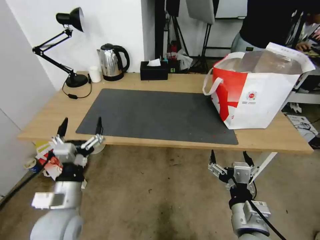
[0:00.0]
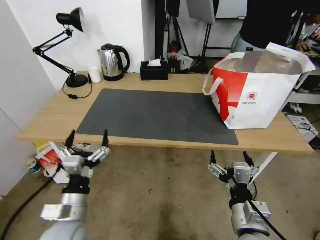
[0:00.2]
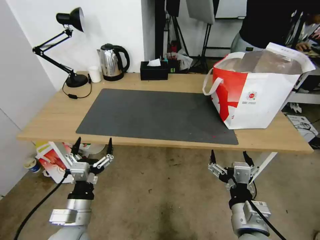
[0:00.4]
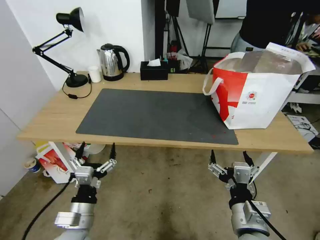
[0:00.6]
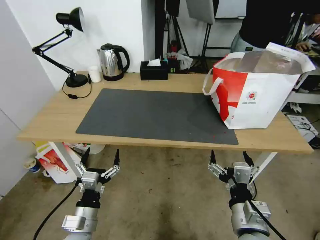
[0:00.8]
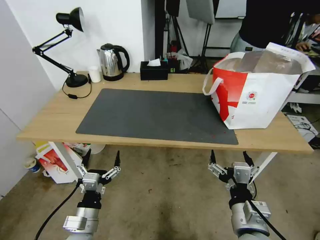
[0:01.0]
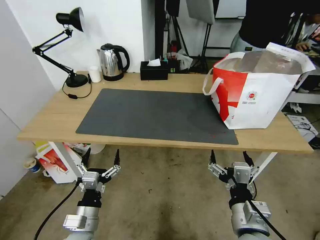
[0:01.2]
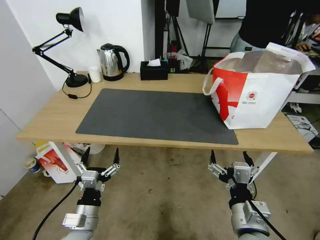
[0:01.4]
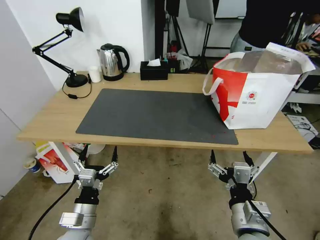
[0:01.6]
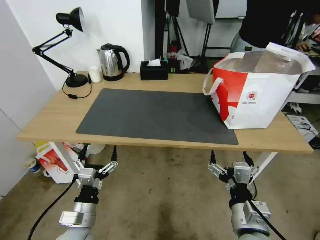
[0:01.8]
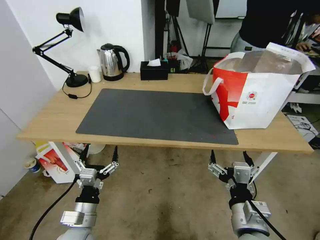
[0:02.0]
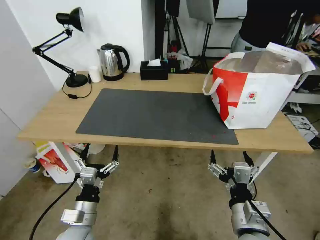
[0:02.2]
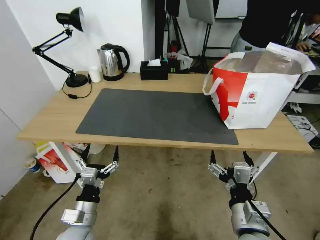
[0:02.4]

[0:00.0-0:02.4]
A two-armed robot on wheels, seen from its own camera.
Task of the whole recording: Pick up the trash from the table and place it into the takeout bag.
0:00.0 to 0:01.2: The left gripper shifts roughly 10 cm downward.
0:01.2 to 0:02.4: The grippers make only small movements.

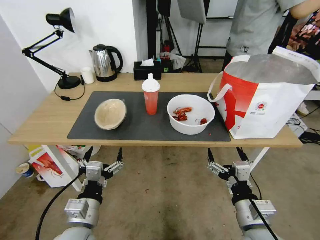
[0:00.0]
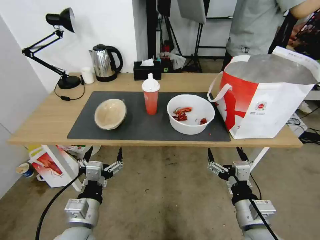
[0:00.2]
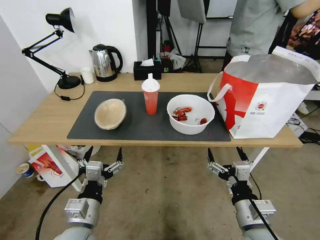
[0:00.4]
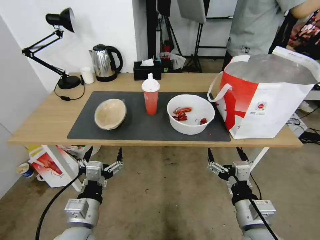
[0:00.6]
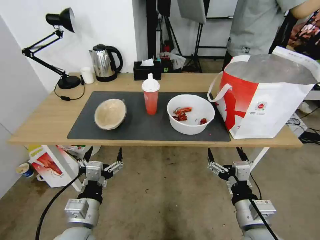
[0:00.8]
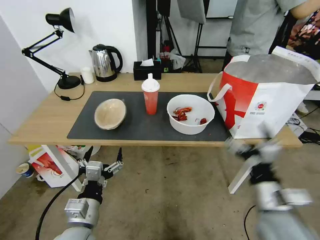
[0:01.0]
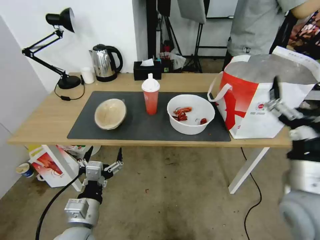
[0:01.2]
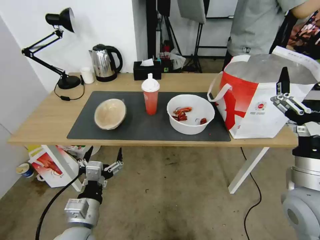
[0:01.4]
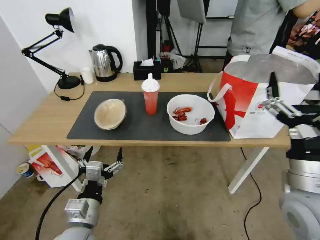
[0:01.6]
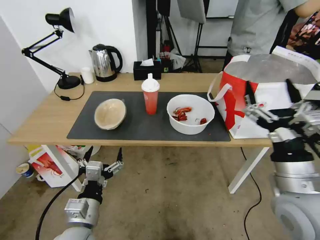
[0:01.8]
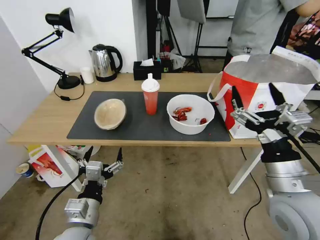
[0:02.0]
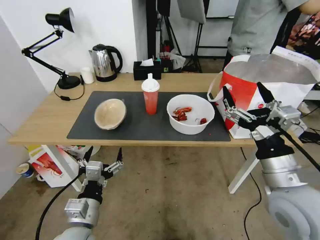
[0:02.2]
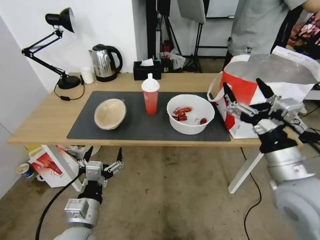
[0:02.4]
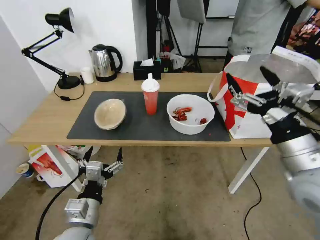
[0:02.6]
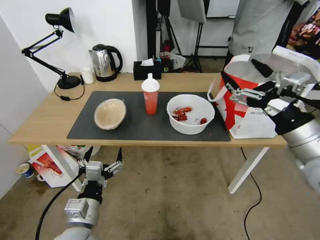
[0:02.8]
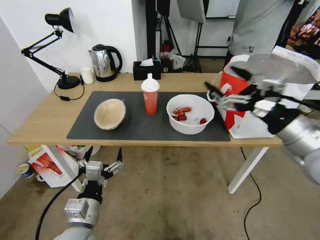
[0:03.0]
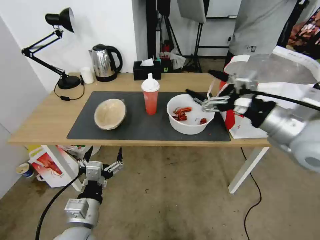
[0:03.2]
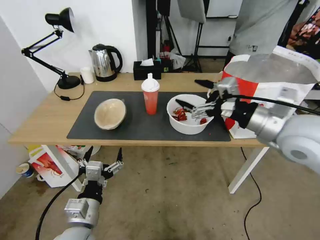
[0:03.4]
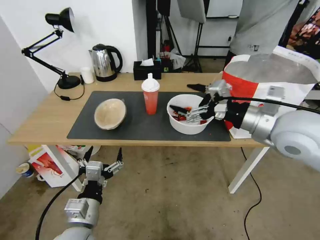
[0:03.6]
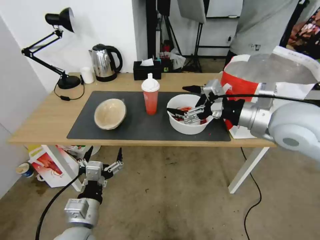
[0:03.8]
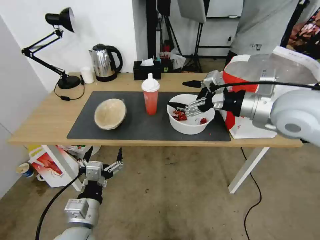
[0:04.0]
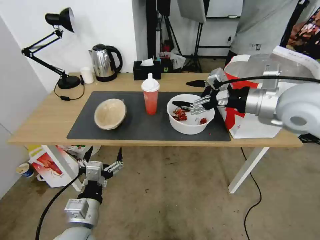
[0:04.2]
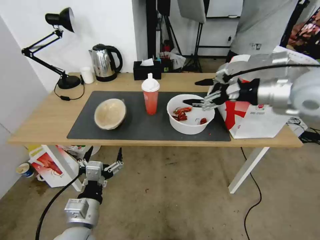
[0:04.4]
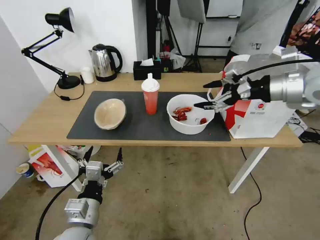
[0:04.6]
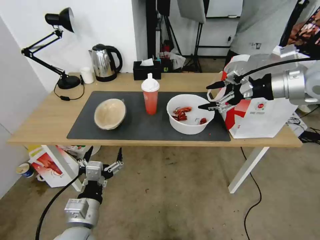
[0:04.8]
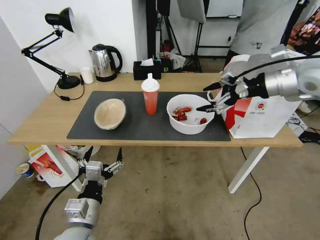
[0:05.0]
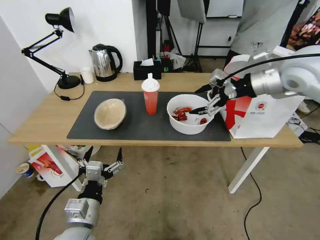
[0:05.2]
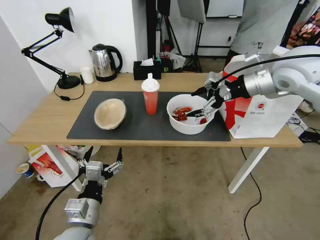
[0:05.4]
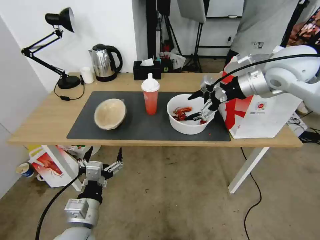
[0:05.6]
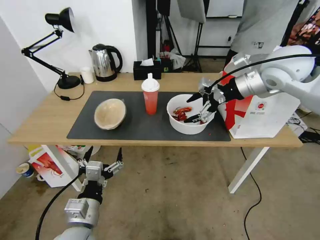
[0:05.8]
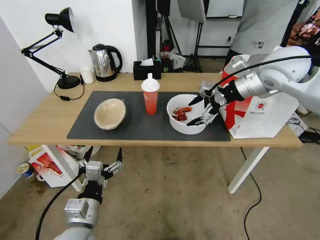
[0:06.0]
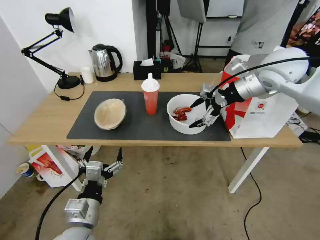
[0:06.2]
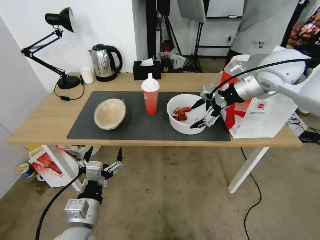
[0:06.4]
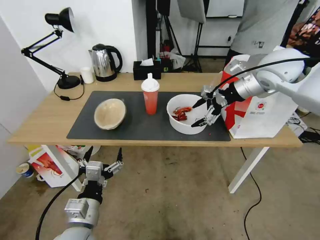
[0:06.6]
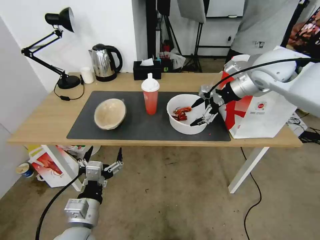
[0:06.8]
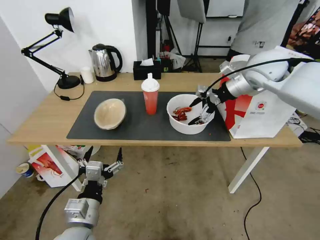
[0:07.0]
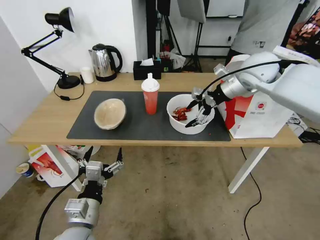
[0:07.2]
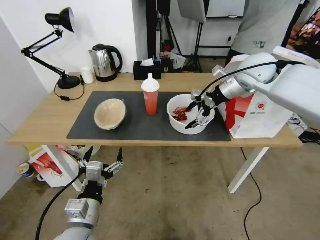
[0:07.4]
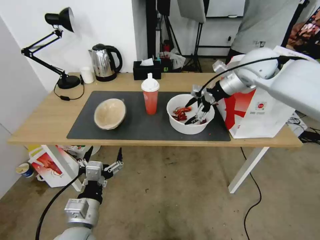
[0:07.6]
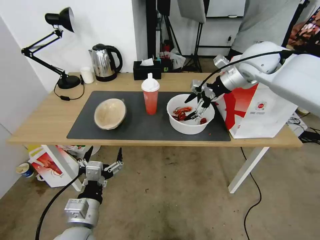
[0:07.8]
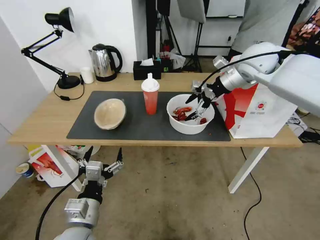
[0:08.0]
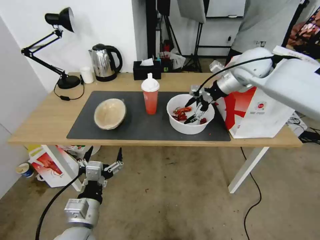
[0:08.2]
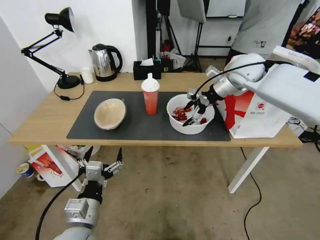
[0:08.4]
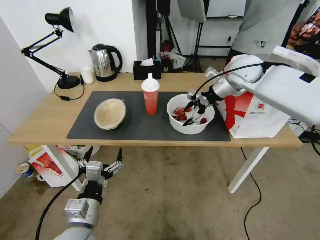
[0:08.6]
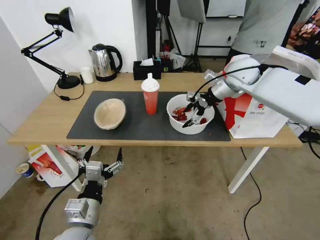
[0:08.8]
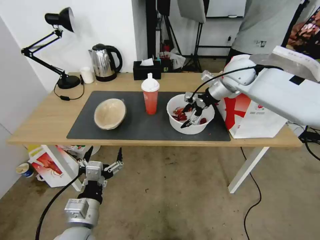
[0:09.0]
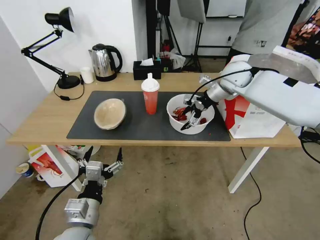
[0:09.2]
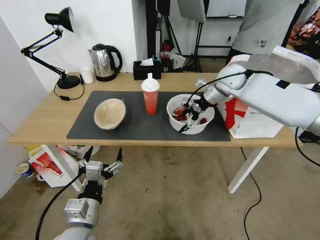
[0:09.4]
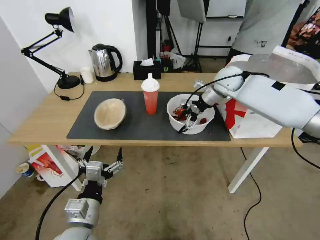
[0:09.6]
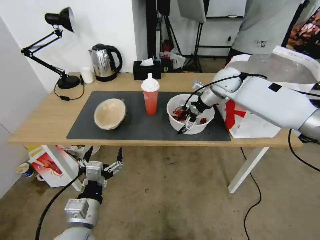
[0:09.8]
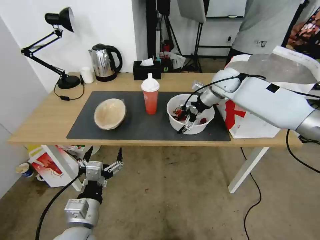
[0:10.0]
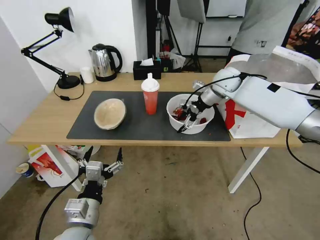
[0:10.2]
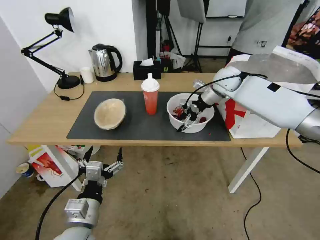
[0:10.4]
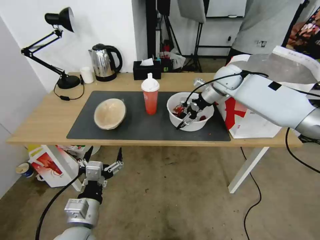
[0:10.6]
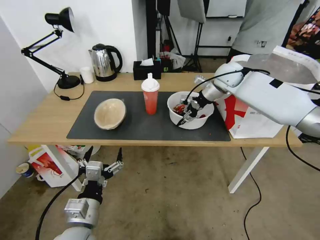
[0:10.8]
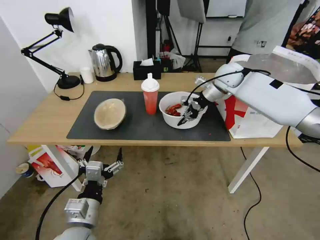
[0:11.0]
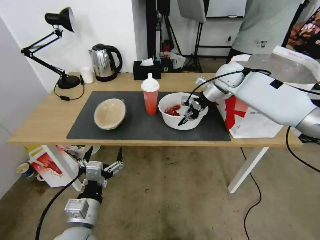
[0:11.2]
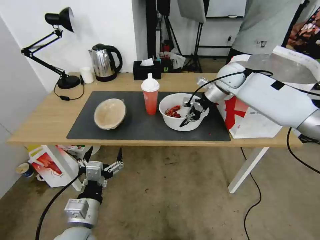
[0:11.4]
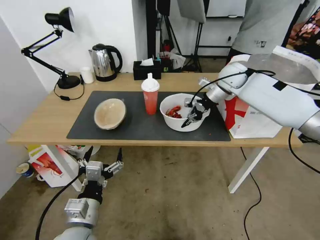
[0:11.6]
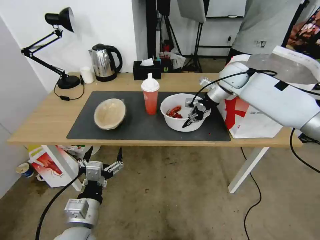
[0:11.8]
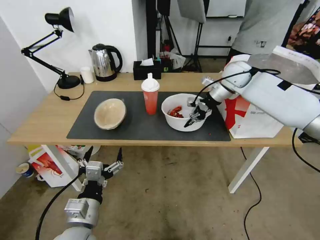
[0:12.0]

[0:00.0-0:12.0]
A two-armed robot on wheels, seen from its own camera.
Task of the whole recording: Pick up the trash from the table and place it into the takeout bag.
0:01.6 to 0:03.0: The right gripper heads upward and forward, covering about 10 cm.
0:03.0 to 0:04.4: The right gripper goes some 15 cm forward and upward.
0:04.4 to 0:06.0: The right gripper heads forward, covering some 10 cm.
0:06.0 to 0:07.6: The right gripper shifts some 5 cm forward.
0:07.6 to 0:09.0: The right gripper changes place by roughly 5 cm.
0:09.0 to 0:10.4: The right gripper ends up some 5 cm from where it was.
0:10.4 to 0:12.0: The right gripper closes up.

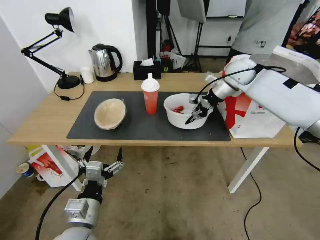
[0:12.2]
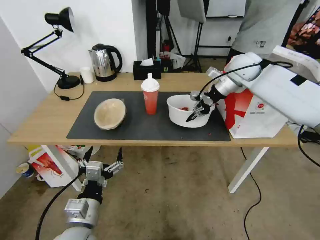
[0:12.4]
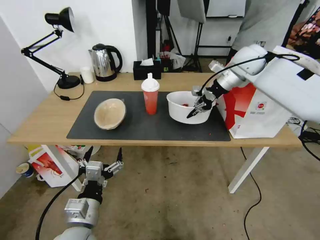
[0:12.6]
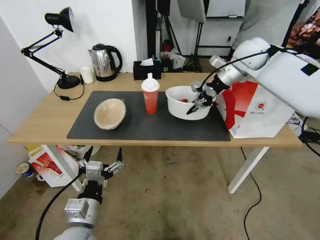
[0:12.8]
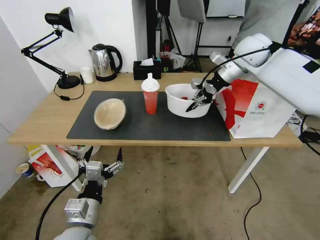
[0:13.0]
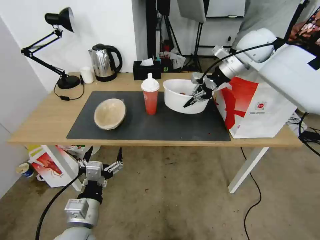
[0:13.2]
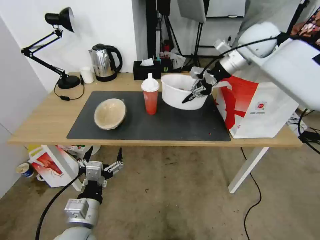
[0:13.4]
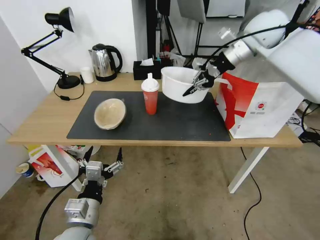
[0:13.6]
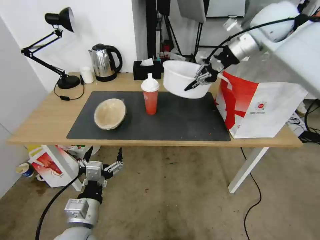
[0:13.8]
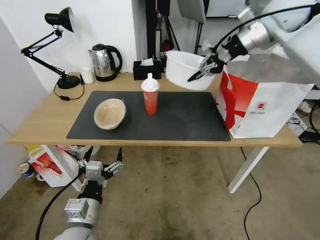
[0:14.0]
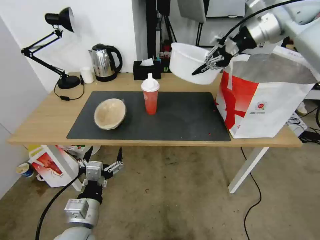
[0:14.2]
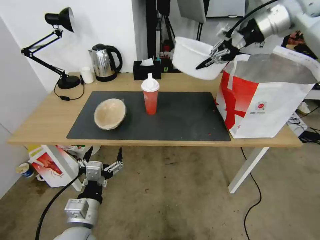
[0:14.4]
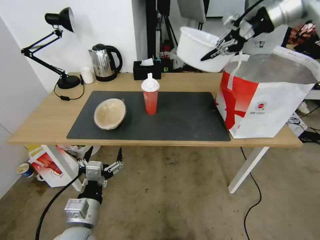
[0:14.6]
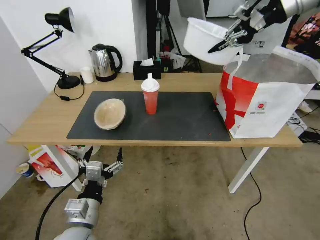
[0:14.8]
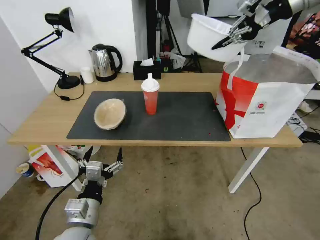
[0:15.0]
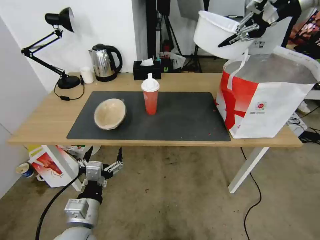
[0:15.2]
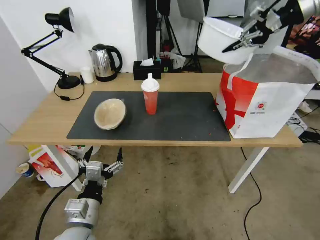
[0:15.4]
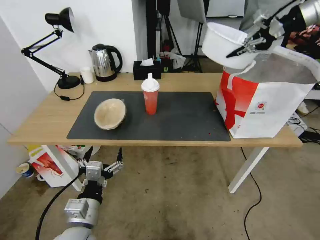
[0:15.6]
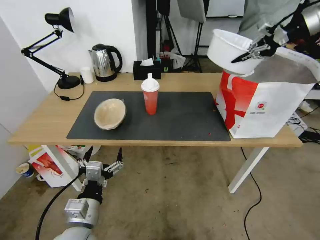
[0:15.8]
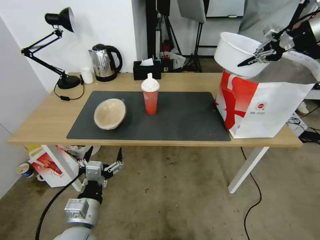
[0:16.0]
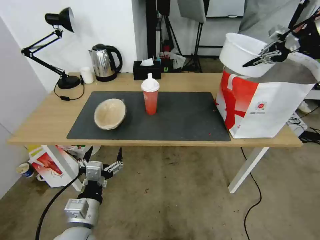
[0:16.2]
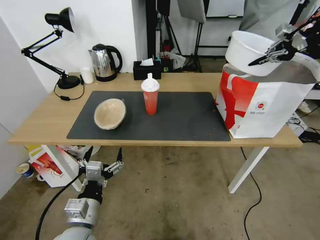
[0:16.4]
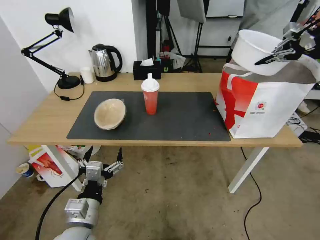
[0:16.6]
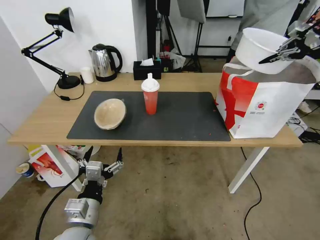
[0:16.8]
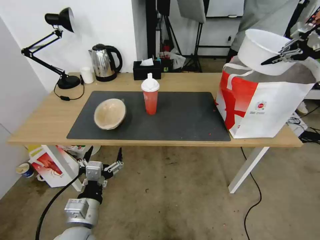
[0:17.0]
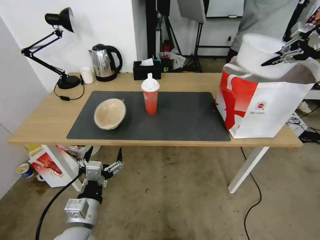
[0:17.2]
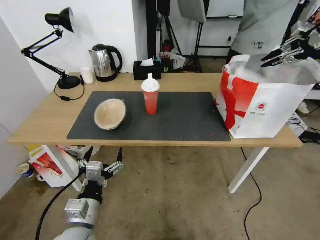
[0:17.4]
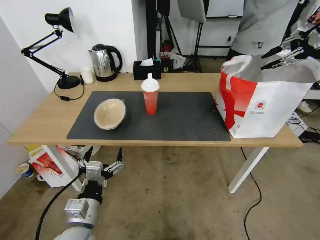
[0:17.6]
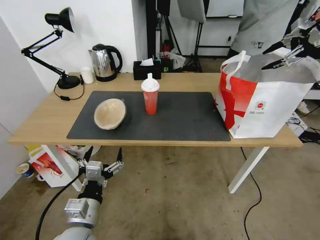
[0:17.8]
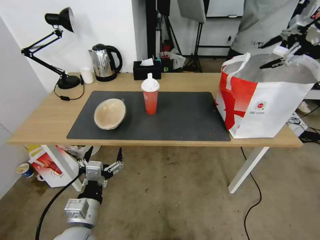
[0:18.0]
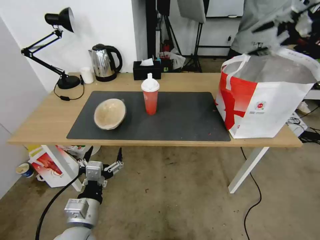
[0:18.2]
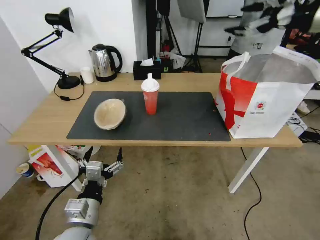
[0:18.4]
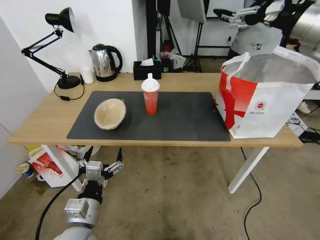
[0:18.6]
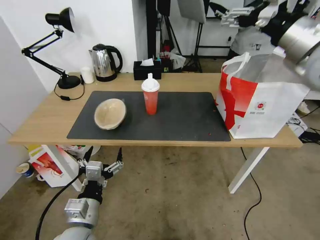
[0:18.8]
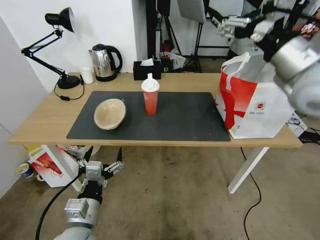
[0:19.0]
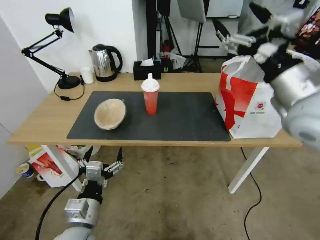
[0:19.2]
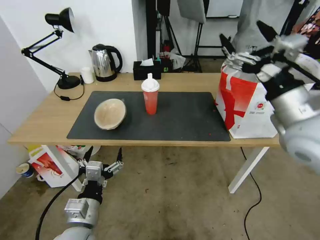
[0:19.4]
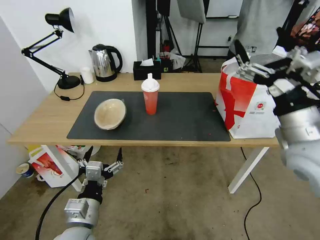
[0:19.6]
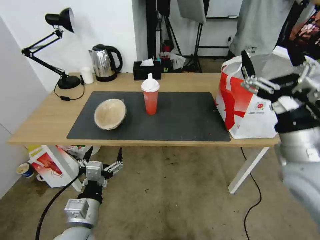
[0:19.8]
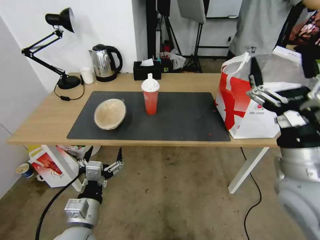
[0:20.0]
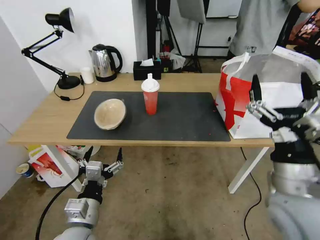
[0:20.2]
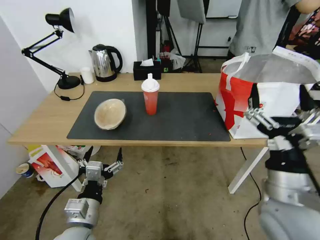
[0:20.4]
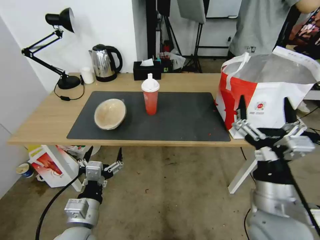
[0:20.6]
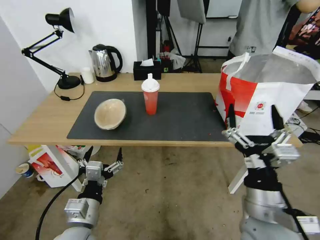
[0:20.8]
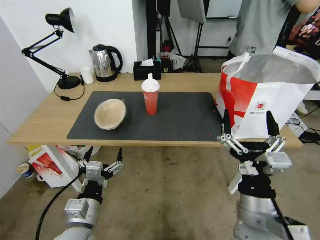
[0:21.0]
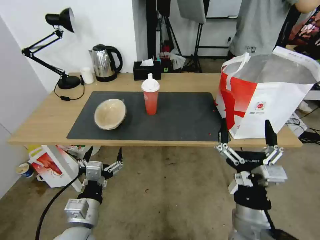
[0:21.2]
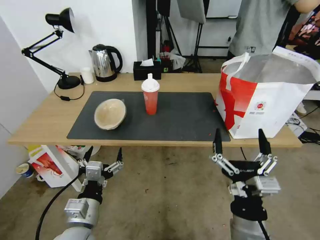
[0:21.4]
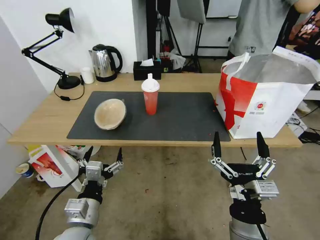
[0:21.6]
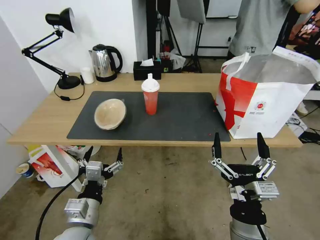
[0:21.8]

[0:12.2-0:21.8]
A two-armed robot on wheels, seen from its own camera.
Task of the whole recording: Pick up the trash from the table and place it into the takeout bag.
0:12.2 to 0:13.8: The right gripper travels upward by approximately 15 cm.
0:13.8 to 0:15.4: The right gripper goes some 15 cm to the right and upward.
0:15.4 to 0:17.0: The right gripper heads to the right, covering some 10 cm.
0:17.0 to 0:18.6: The right gripper moves to the left and backward, some 20 cm, and opens its fingers.
0:18.6 to 0:20.2: The right gripper is displaced downward and backward by some 30 cm.
0:20.2 to 0:21.8: The right gripper heads downward, backward and to the left, covering roughly 20 cm.
